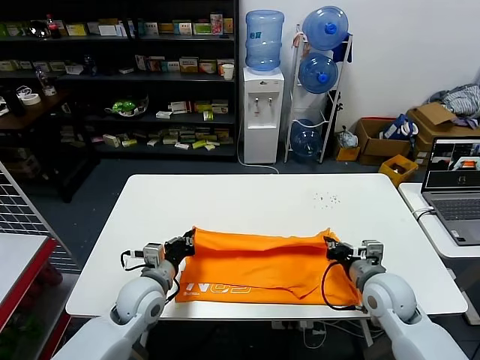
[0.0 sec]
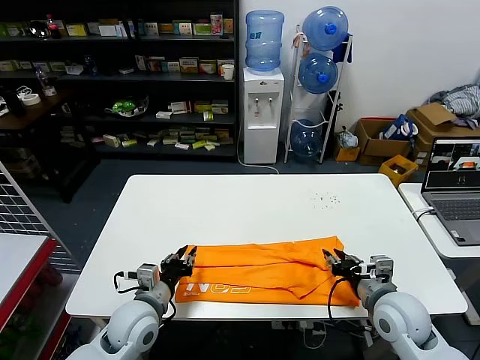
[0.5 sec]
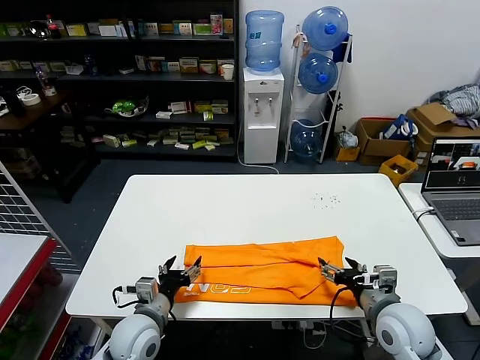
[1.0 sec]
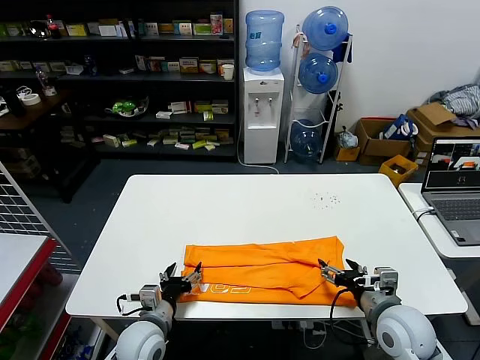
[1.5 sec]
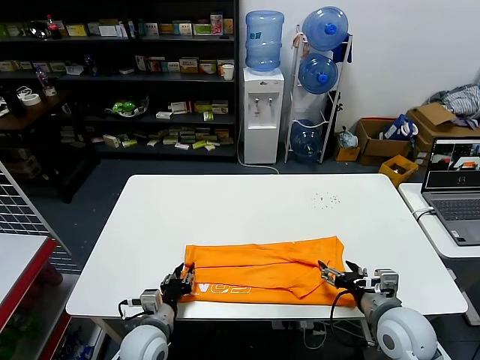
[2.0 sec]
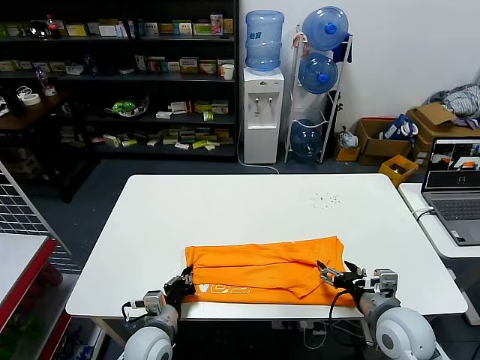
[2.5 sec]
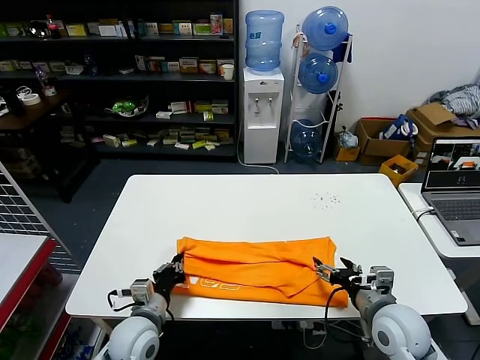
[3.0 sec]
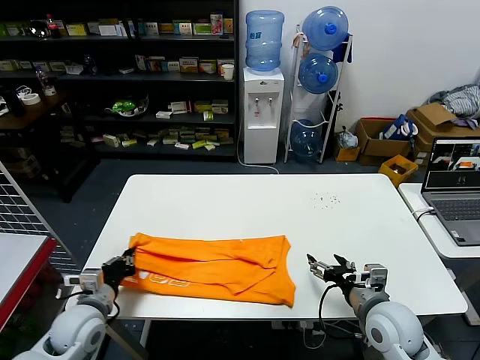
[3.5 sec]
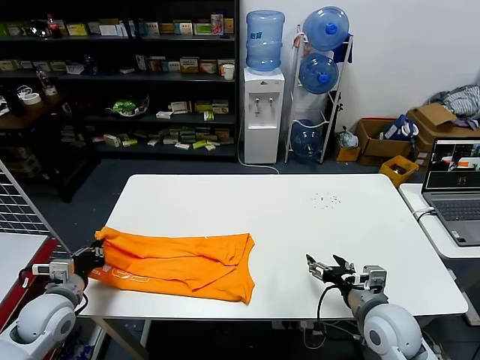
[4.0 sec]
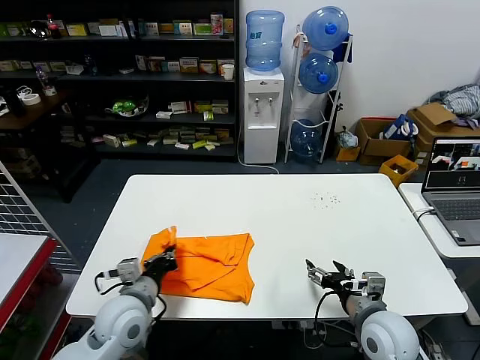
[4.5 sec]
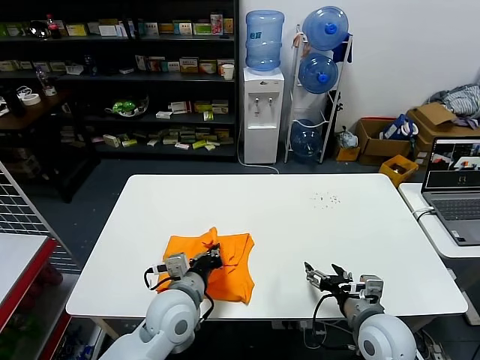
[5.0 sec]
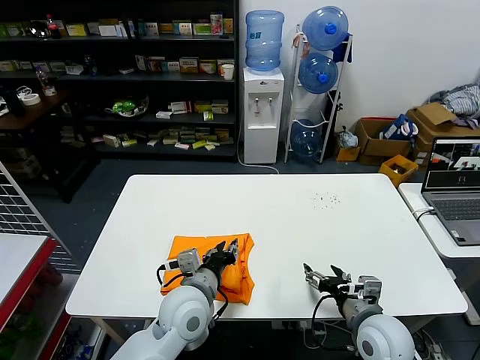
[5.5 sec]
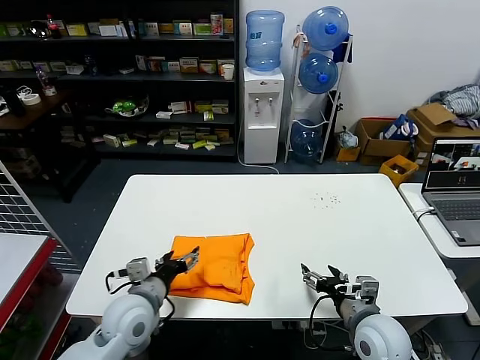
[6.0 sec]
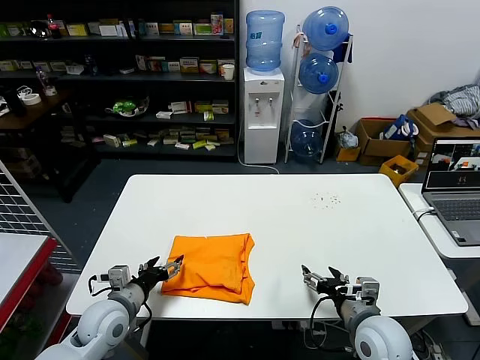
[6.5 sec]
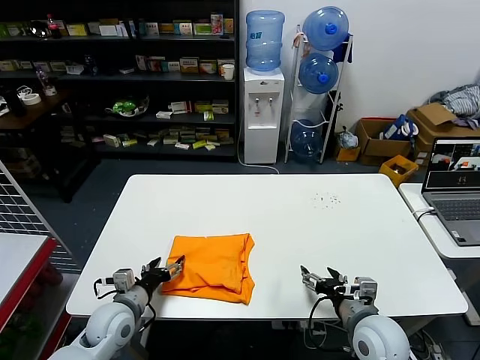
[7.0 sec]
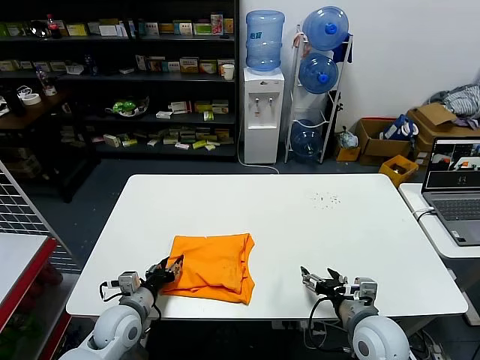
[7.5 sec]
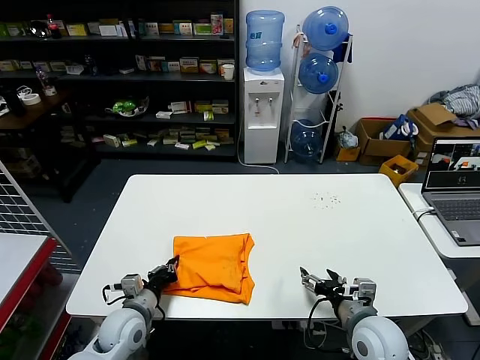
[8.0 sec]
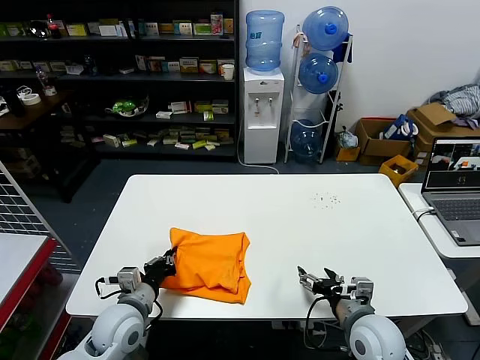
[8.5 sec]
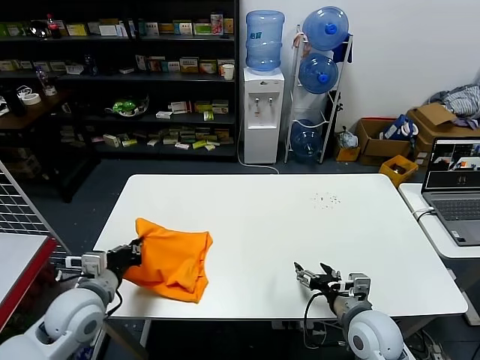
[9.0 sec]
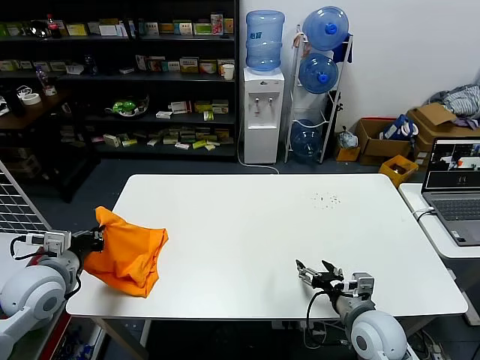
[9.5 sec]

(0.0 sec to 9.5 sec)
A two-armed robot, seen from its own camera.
Task of the whole recording: fold and organize the clothes.
Step, 1.5 sec - 2.5 sec: use the left gripper to clamp the left edge of the fabric.
Step, 3.0 sec - 5.5 sec: use the left gripper to drag the left edge of the fabric to the left and folds it over the right edge.
0.0 sec - 2.0 sec: The right gripper shifts some 5 cm backward, and opens up. Meanwhile the left gripper moves downward and backward, about 10 cm, and opens its fingers.
2.0 sec - 4.0 sec: The left gripper moves to the left and upward, roughly 20 cm, and closes its fingers.
4.0 sec - 5.5 sec: The left gripper goes roughly 30 cm to the right, and opens up.
5.5 sec - 7.5 sec: The left gripper moves to the left and downward, approximately 20 cm, and opens and closes again.
7.5 sec - 9.5 sec: The left gripper shifts approximately 20 cm upward and to the left, and closes up.

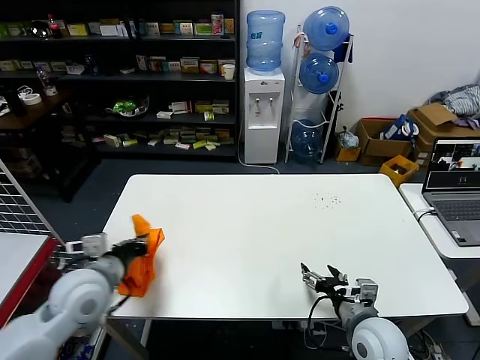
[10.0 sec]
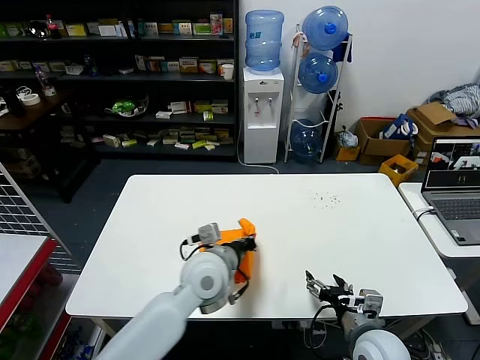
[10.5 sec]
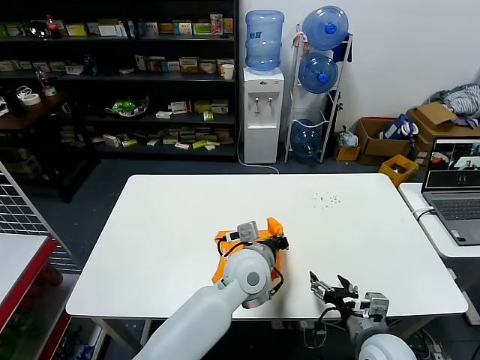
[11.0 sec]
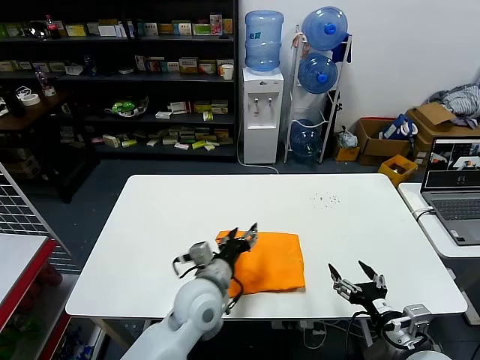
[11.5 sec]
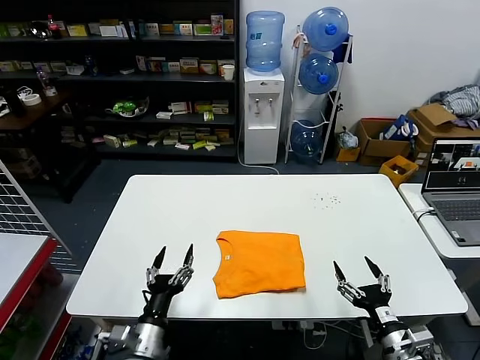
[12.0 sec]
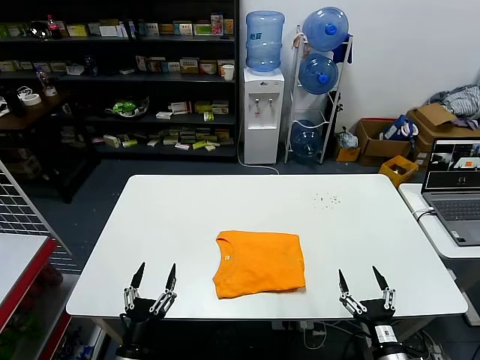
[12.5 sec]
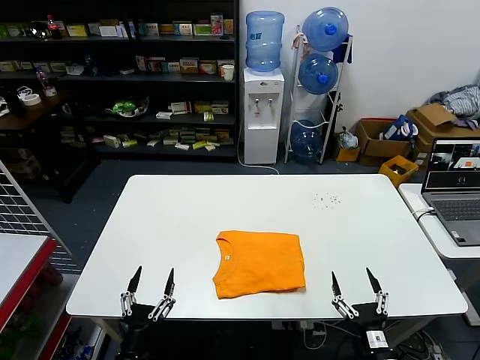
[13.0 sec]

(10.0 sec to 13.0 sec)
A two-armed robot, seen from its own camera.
Task of the whole recording: fold and organize the clothes.
10.0 sec - 11.5 sec: The left gripper goes approximately 25 cm to the right, and opens up, while the right gripper is displaced backward and to the right by roughly 10 cm.
11.5 sec - 13.0 sec: The right gripper is displaced downward by approximately 10 cm, while the left gripper heads backward, to the left and downward, covering some 30 cm.

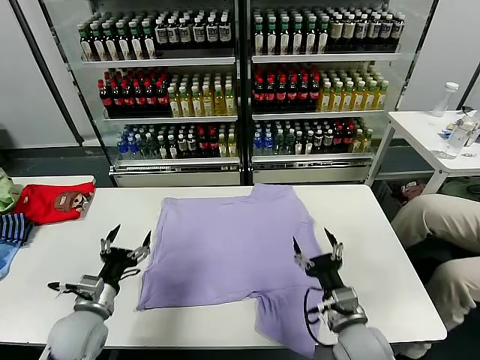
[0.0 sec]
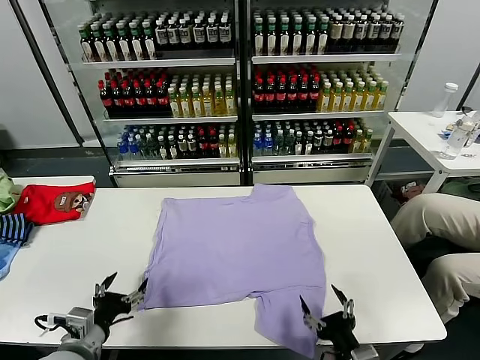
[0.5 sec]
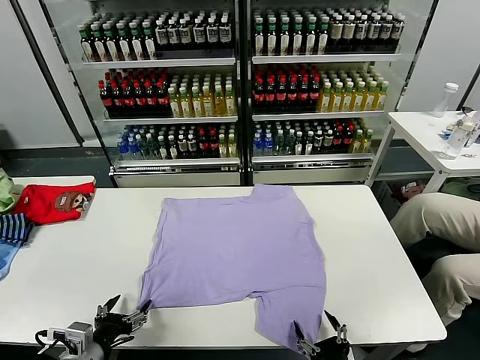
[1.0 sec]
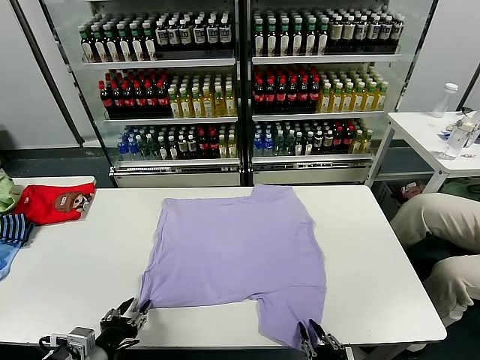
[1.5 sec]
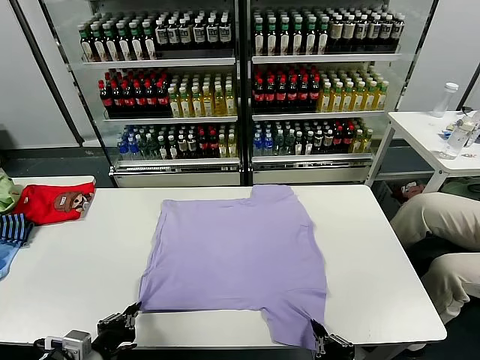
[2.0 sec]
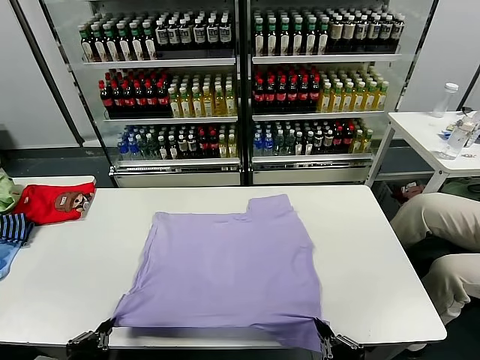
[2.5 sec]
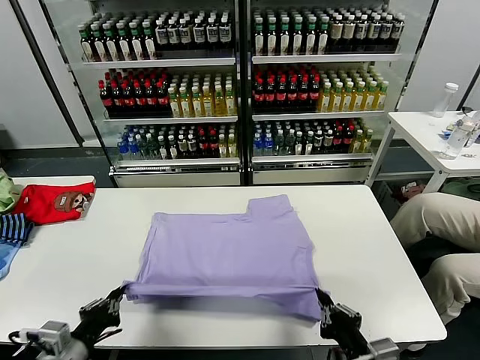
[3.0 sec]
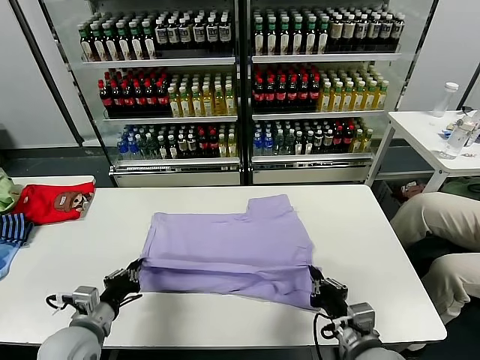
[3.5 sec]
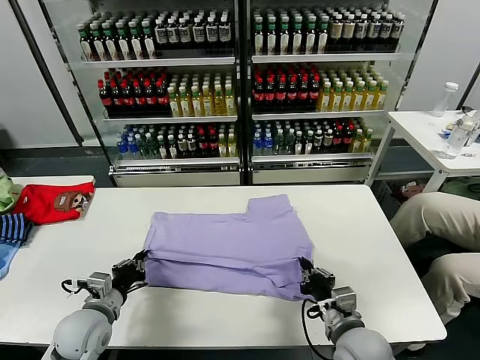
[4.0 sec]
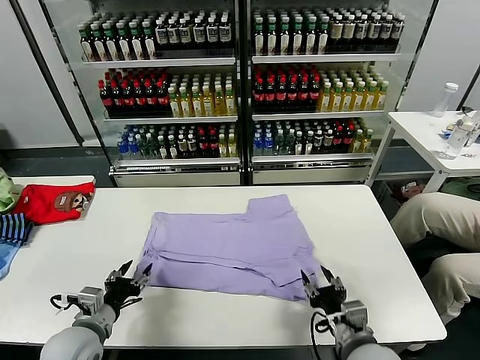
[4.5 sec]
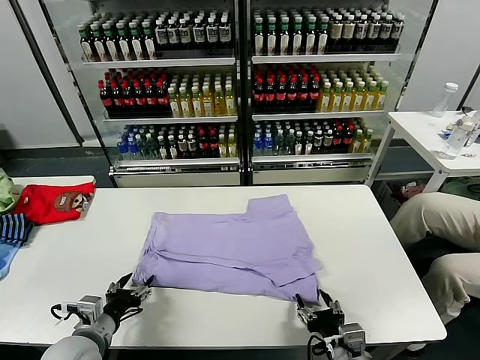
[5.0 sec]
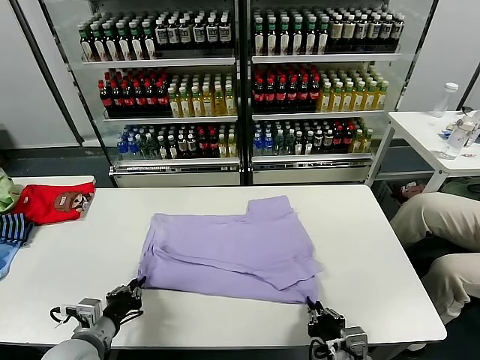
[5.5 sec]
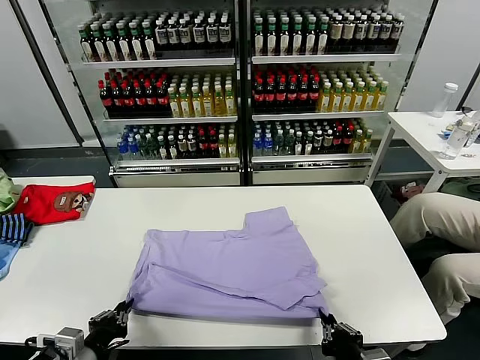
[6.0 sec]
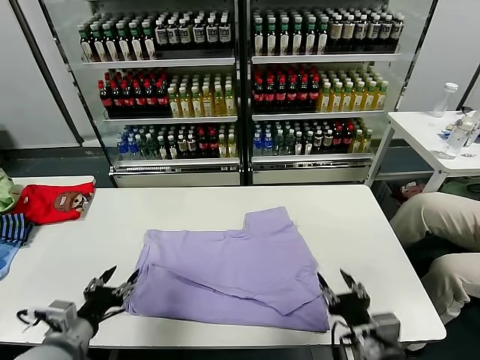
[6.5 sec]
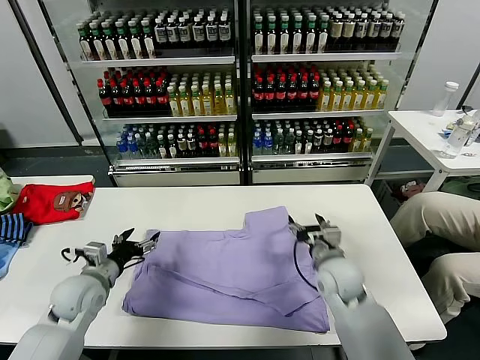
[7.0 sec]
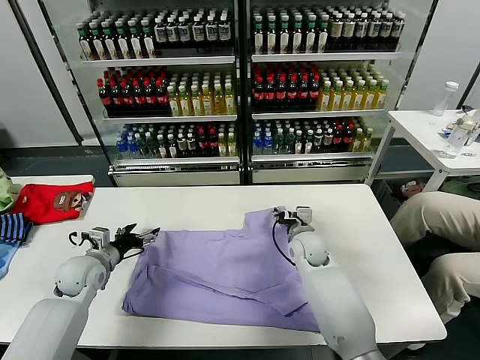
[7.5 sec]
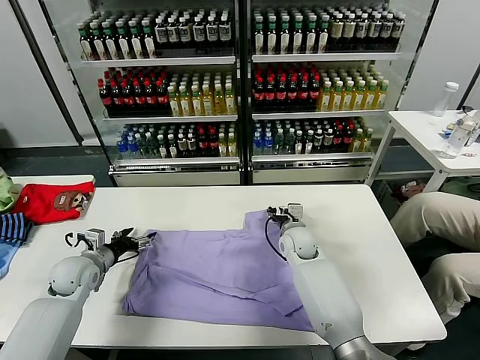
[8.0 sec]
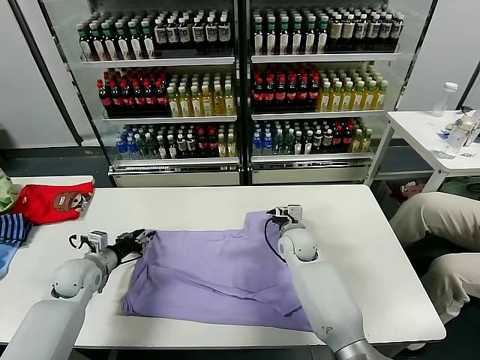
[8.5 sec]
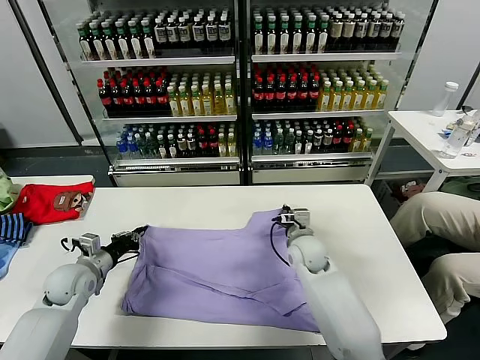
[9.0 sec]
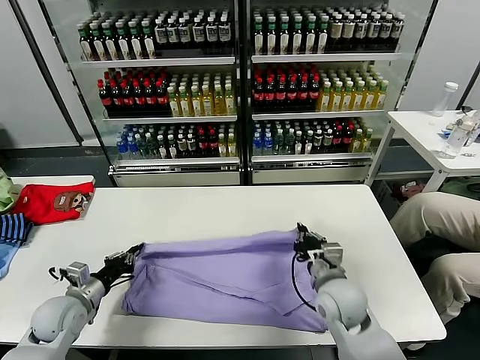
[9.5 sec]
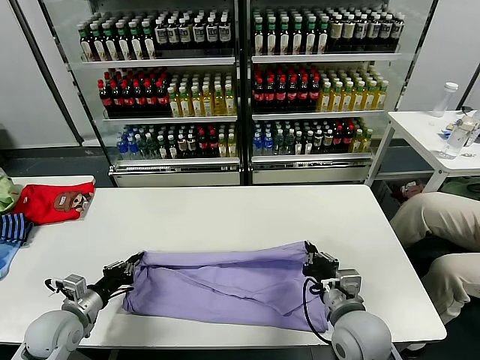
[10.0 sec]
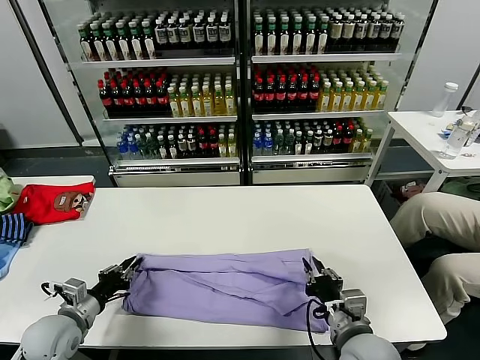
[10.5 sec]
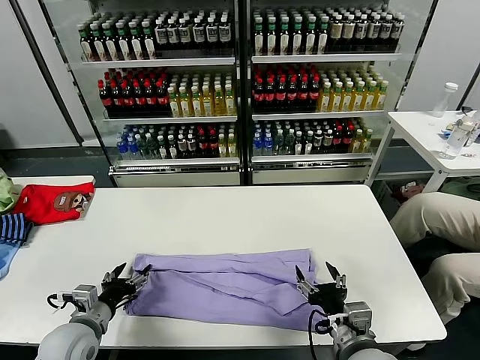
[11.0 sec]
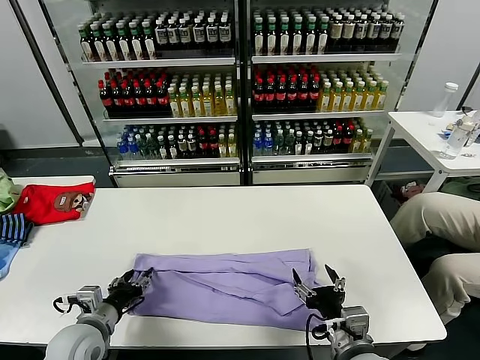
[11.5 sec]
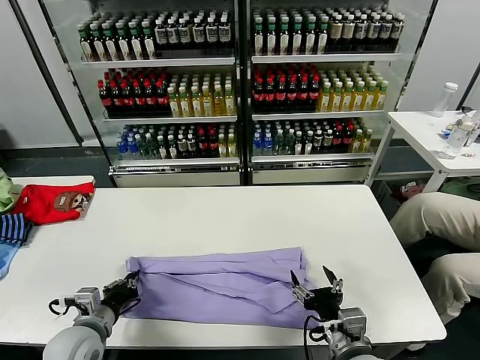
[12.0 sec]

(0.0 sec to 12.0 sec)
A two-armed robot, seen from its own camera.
Task of the whole recording: fold and organize the clothes.
Step, 0.0 sec - 1.5 sec: use both grippers simultaneously to clamp the lower edge of the clothing fabric.
Step, 2.0 sec - 4.5 sec: use both grippers to drag the lower edge of the fabric forward and fold it over the upper edge.
Step, 5.0 sec - 6.0 sec: Drag the clothes downward with both gripper.
Step, 7.0 sec - 8.5 sec: use both grippers simultaneously to clamp the upper edge of the clothing fabric.
Step, 9.0 sec - 11.0 sec: use both grippers to drag the upper edge of the fabric backward and fold it over the lower edge.
2.0 sec - 4.0 sec: Both grippers travel together forward, some 15 cm.
4.0 sec - 6.0 sec: The two grippers go some 15 cm backward. The left gripper opens, then closes once more; the right gripper opens, then closes again.
6.0 sec - 8.0 sec: The right gripper moves forward, about 40 cm, and opens. Meanwhile the left gripper goes roughly 25 cm forward, and opens.
8.0 sec - 10.0 sec: The right gripper goes roughly 25 cm backward, and closes its fingers; the left gripper is displaced backward by roughly 10 cm, and closes.
10.0 sec - 12.0 sec: The right gripper moves backward, about 5 cm, and opens its fingers. The left gripper is displaced to the right by roughly 5 cm, and opens, then closes once more.
